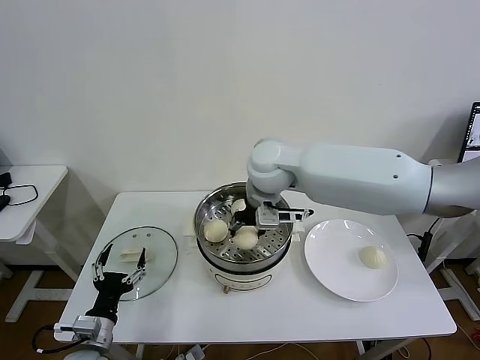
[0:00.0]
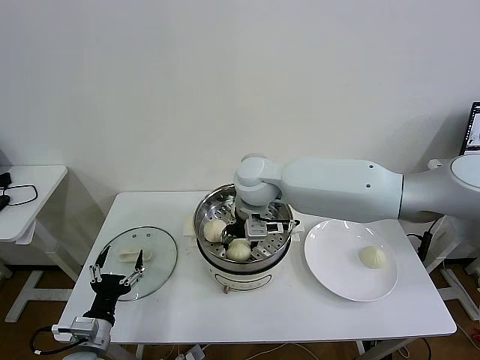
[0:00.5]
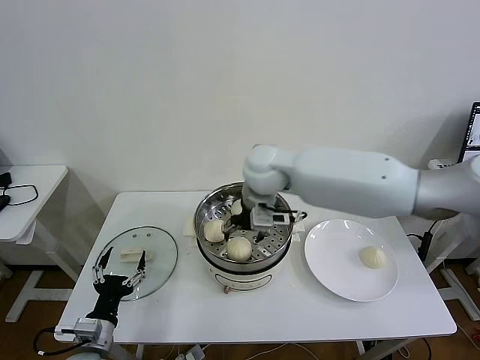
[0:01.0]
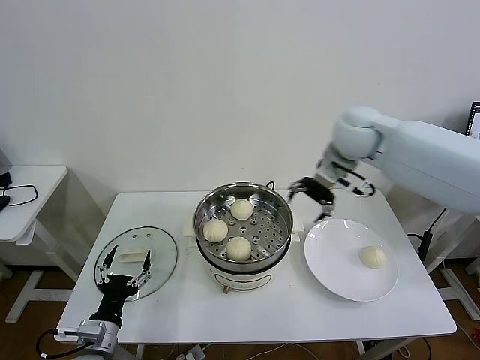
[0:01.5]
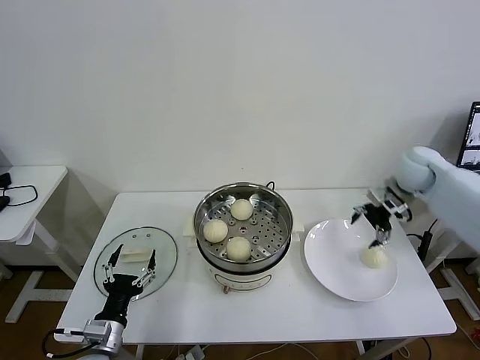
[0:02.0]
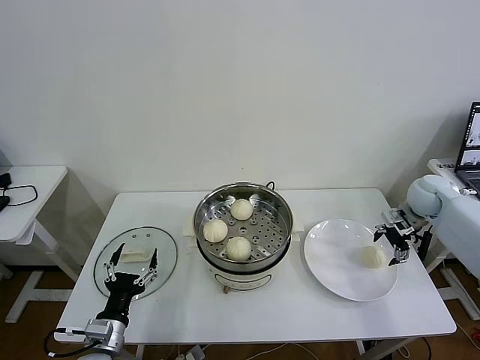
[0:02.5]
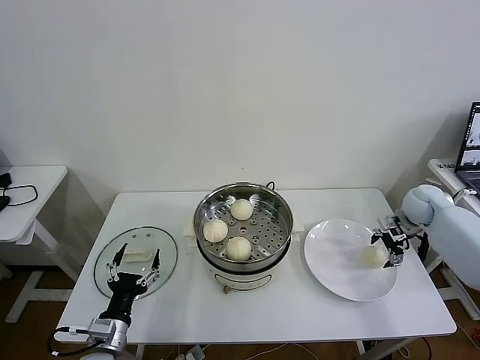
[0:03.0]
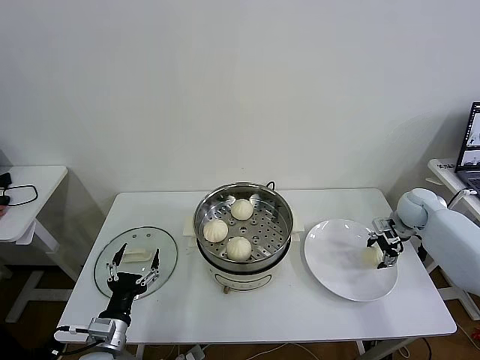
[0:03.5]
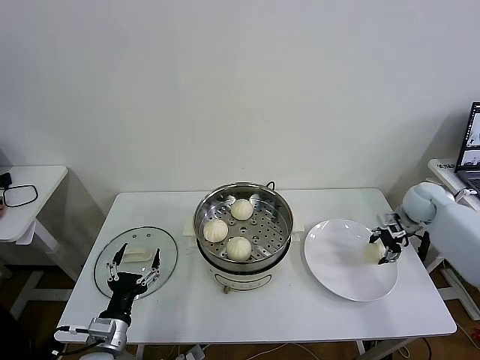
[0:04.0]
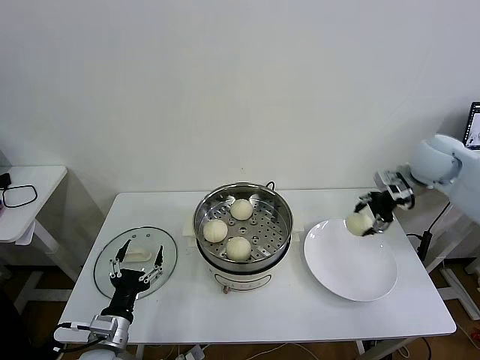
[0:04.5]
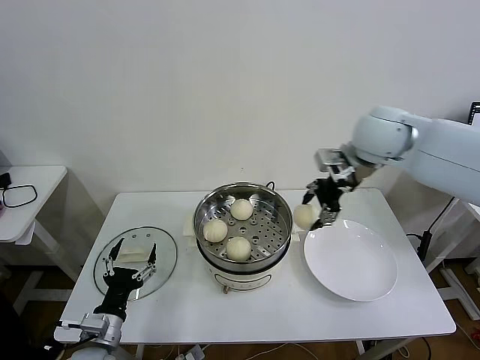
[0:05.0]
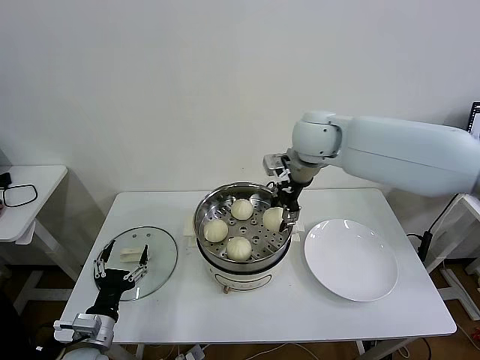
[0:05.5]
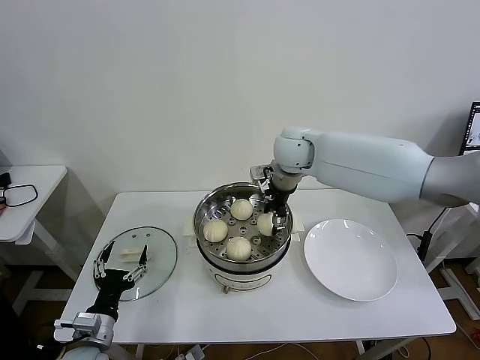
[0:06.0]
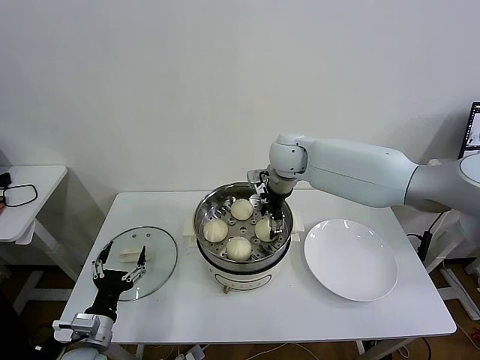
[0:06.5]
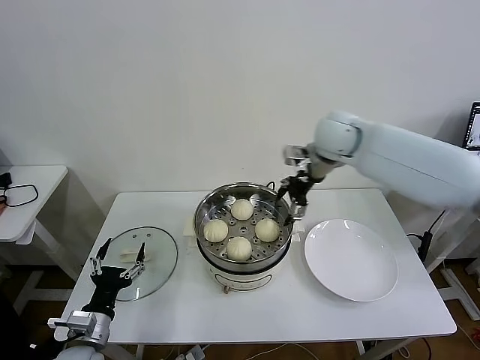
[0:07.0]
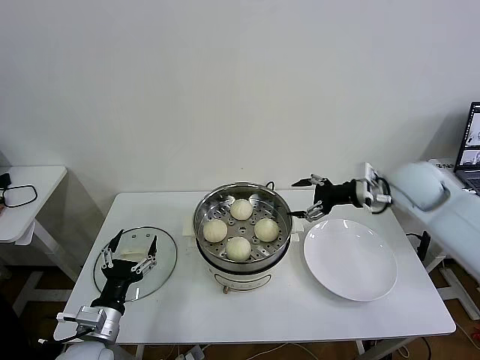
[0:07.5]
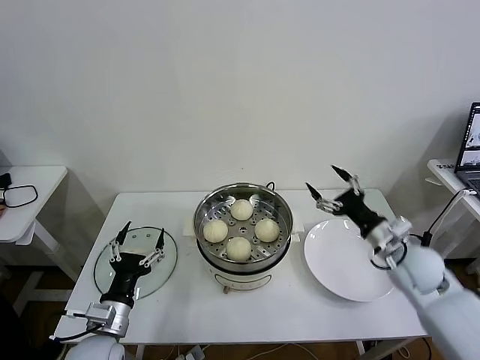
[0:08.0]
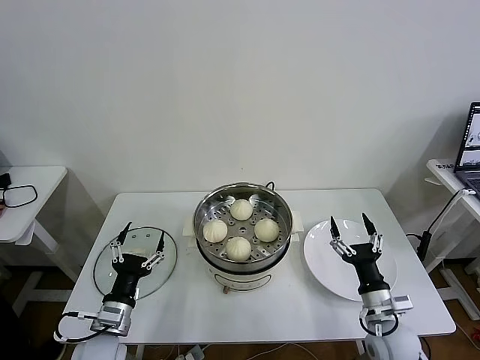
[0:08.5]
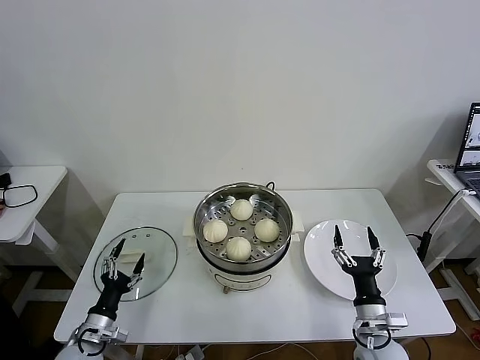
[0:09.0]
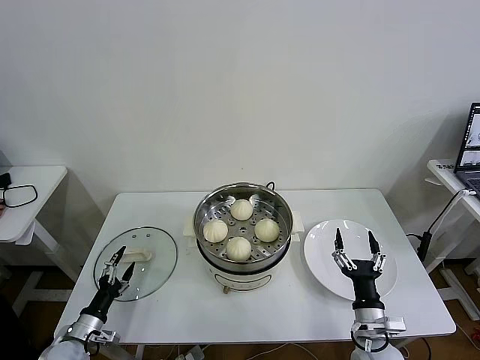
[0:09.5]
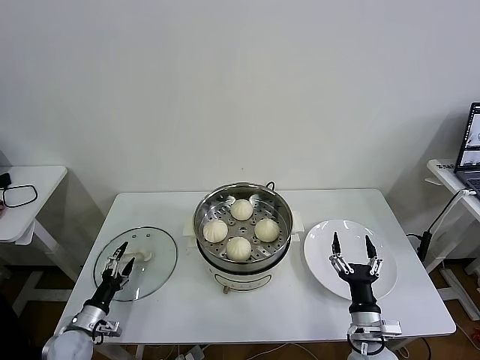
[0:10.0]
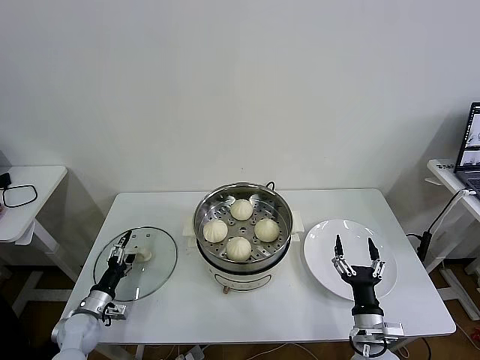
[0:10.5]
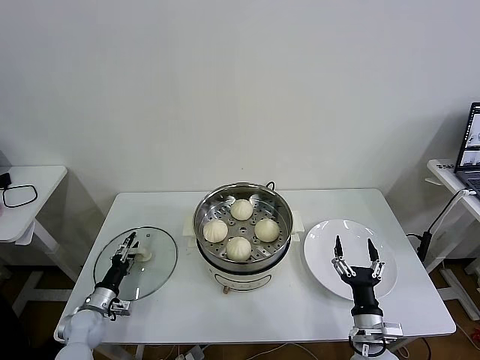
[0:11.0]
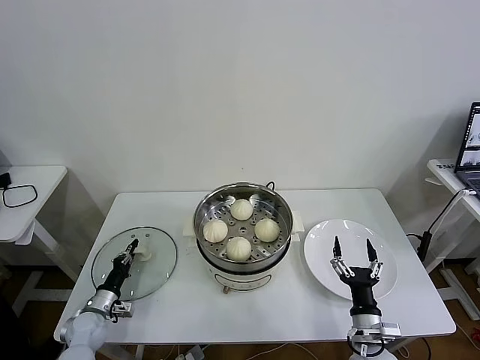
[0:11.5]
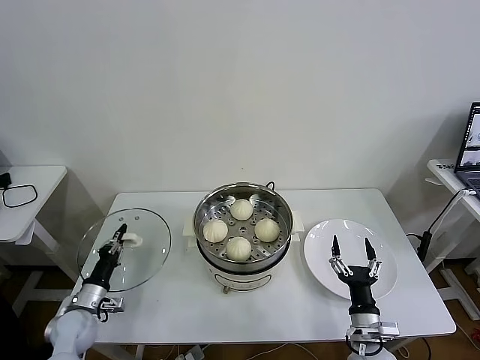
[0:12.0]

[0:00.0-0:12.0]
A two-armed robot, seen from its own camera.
Task of the whole recording: take steamed baozi put them in steamer then cover it.
Step, 0:01.0 to 0:03.5: Grasp the baozi in the plate with right gripper.
Step, 0:04.0 to 0:06.5: Place the baozi on the steamer with right gripper.
Step, 0:07.0 to 0:11.5: Grasp the pot lid with left gripper.
0:00.0 to 0:02.0: The right gripper travels to the right by about 35 cm, and opens up.
0:02.0 to 0:04.0: The right gripper moves downward and to the right, approximately 10 cm, and closes its fingers.
0:04.0 to 0:06.0: The right gripper travels to the left by approximately 35 cm.
0:06.0 to 0:08.0: The right gripper travels to the right, backward and downward by roughly 35 cm, and opens; the left gripper moves approximately 5 cm.
0:08.0 to 0:10.0: The right gripper heads downward, backward and to the left, covering roughly 25 cm, while the left gripper travels downward and to the left by roughly 20 cm.
0:10.0 to 0:12.0: The left gripper changes place by approximately 5 cm, and closes.

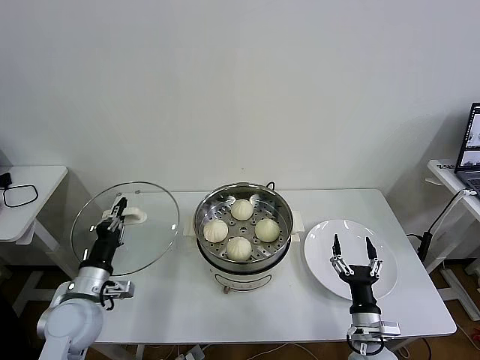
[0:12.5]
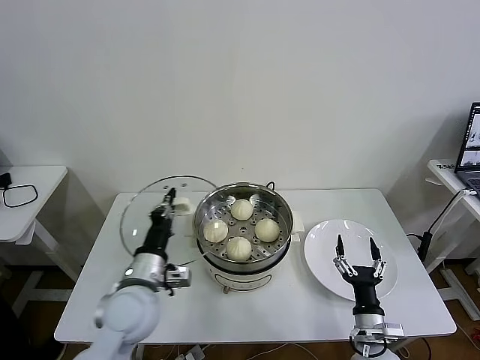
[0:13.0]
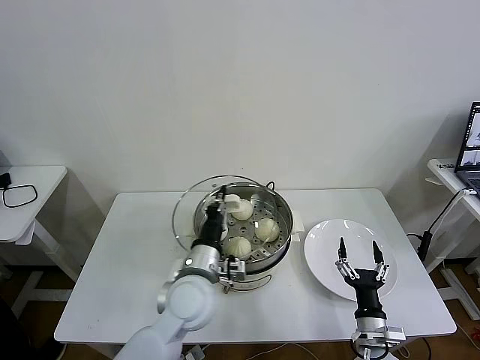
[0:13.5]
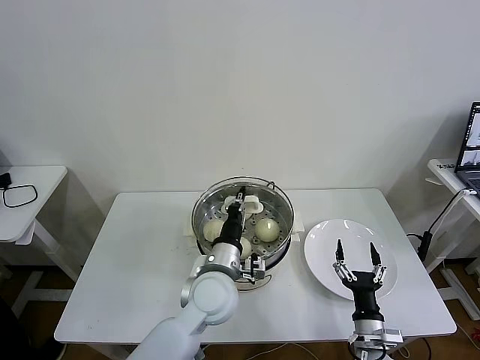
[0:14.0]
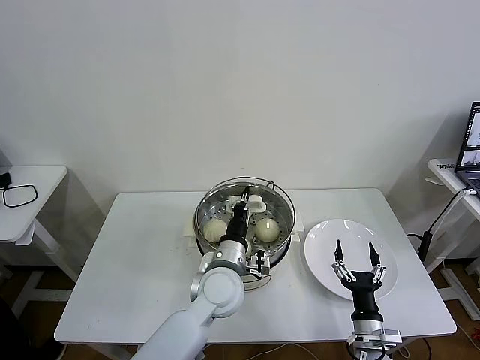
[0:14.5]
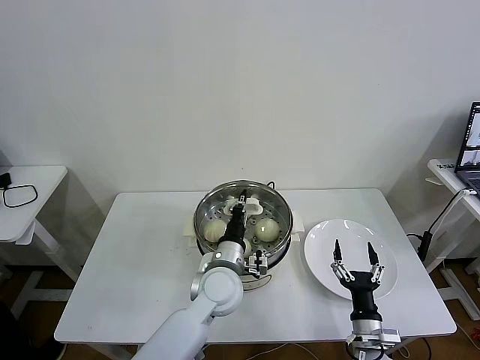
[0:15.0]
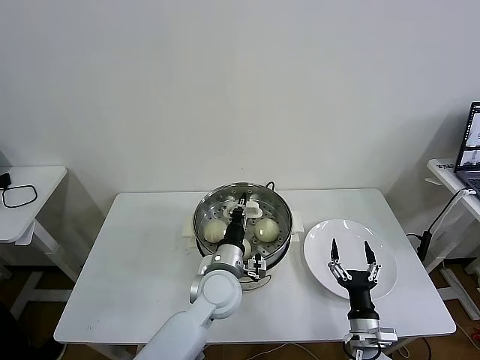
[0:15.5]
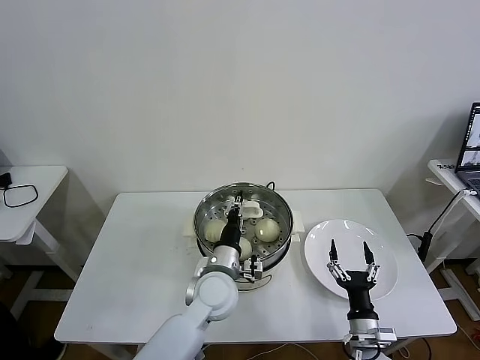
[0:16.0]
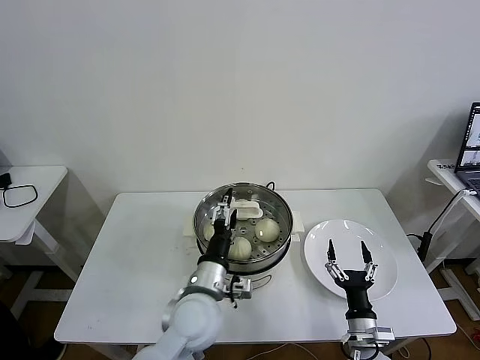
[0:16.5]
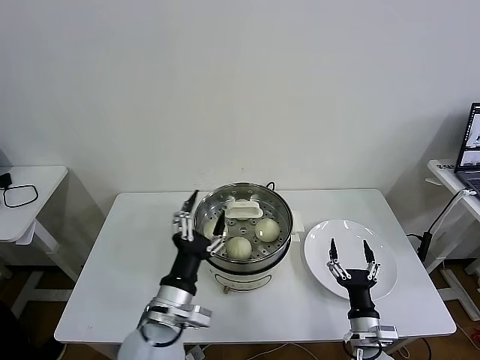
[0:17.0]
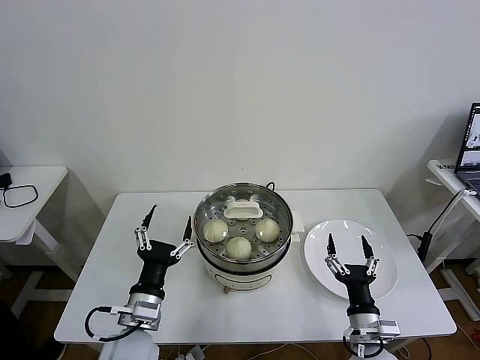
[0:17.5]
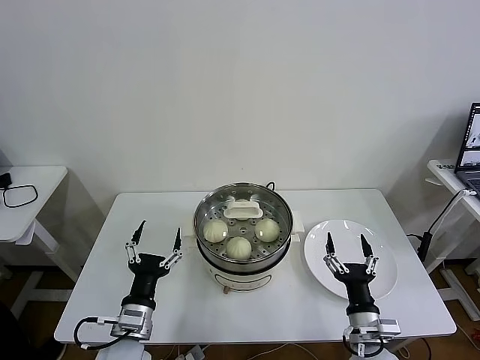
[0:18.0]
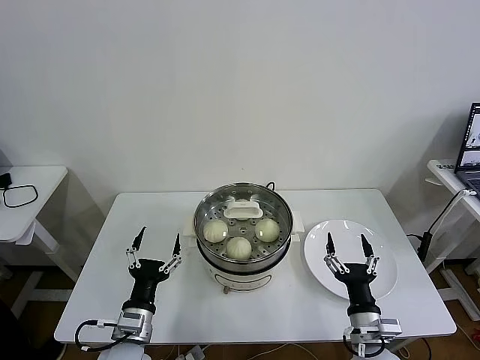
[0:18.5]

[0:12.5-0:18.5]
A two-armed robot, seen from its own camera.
Task of the whole recording: take steamed baozi put them in steamer then cover it.
Step, 0:12.5 to 0:16.0: Place the pot lid on the steamer with left gripper.
0:12.5 to 0:14.5: The left gripper shifts roughly 30 cm to the right.
0:14.5 to 0:16.5: The left gripper ends up some 5 cm from where it was, and opens up.
0:16.5 to 0:18.5: The left gripper goes some 15 cm to the left and backward; the right gripper goes about 5 cm upward.
